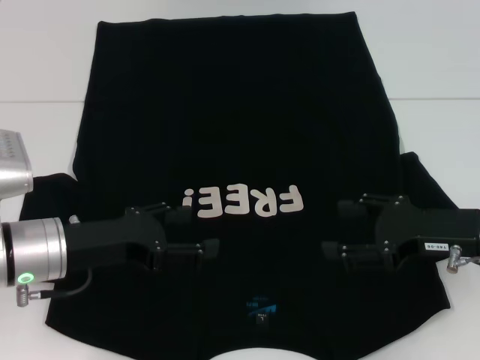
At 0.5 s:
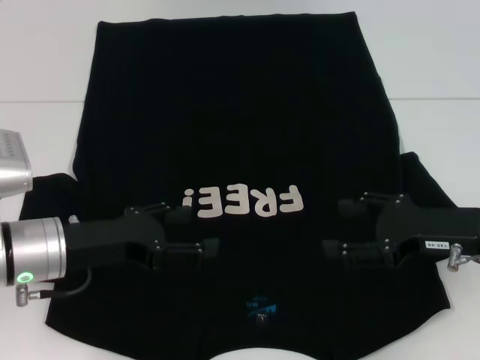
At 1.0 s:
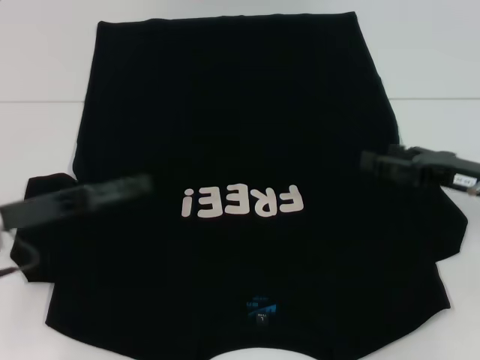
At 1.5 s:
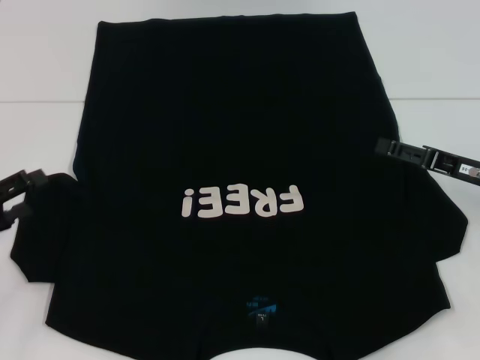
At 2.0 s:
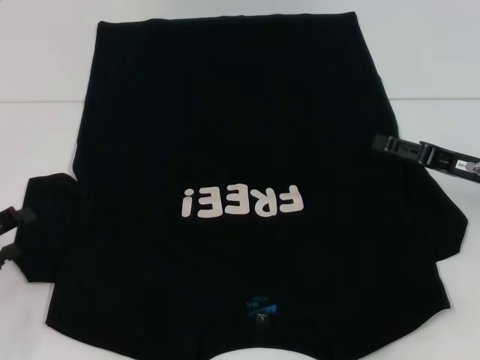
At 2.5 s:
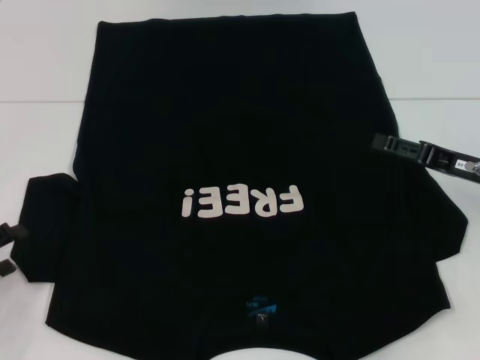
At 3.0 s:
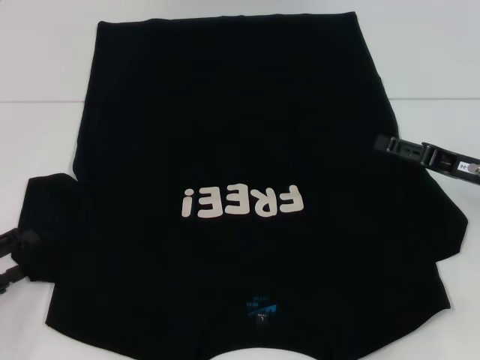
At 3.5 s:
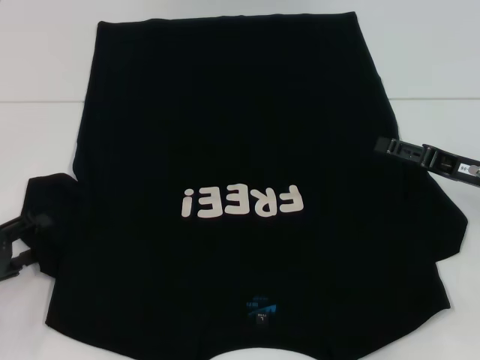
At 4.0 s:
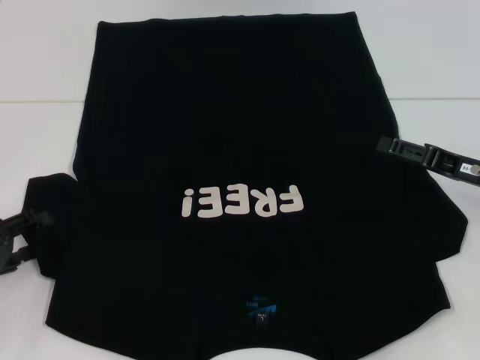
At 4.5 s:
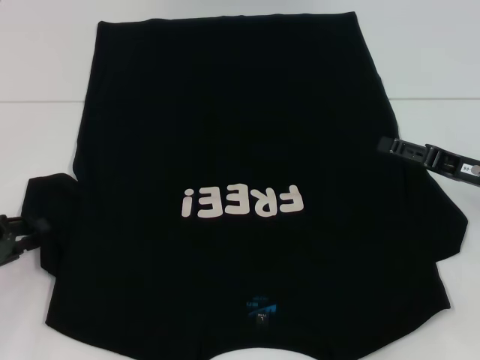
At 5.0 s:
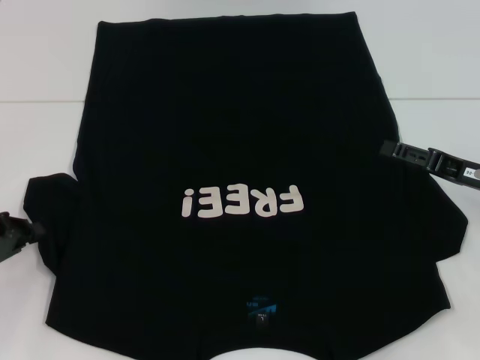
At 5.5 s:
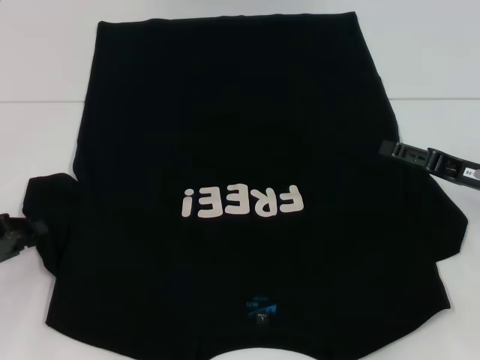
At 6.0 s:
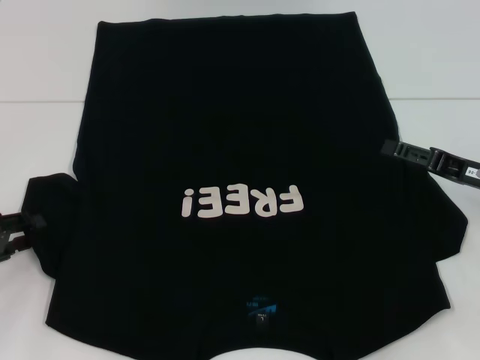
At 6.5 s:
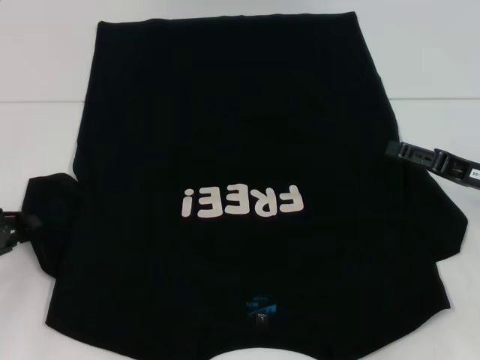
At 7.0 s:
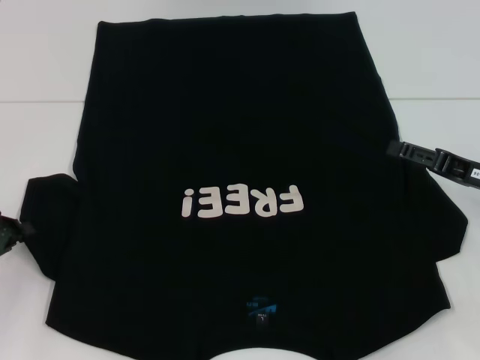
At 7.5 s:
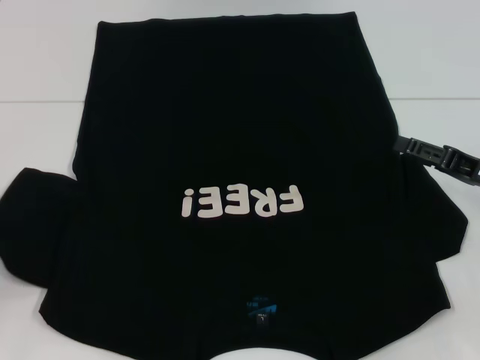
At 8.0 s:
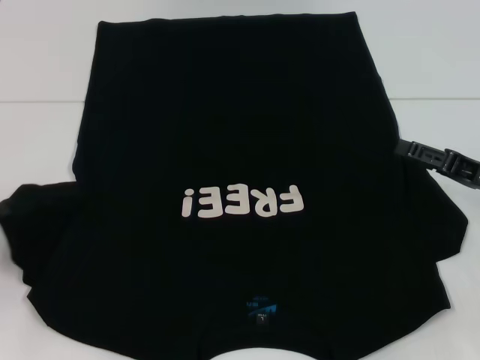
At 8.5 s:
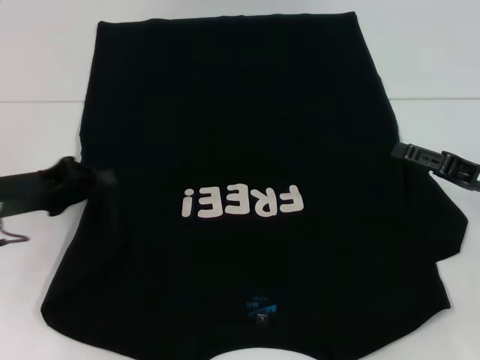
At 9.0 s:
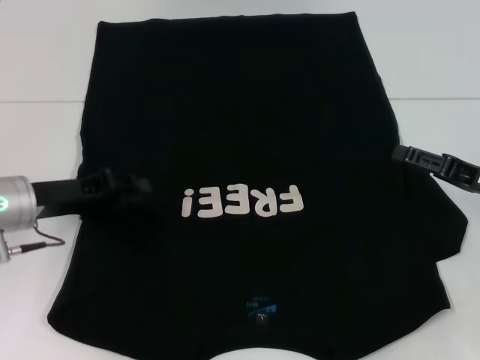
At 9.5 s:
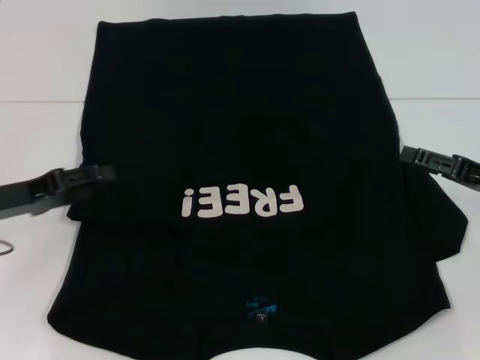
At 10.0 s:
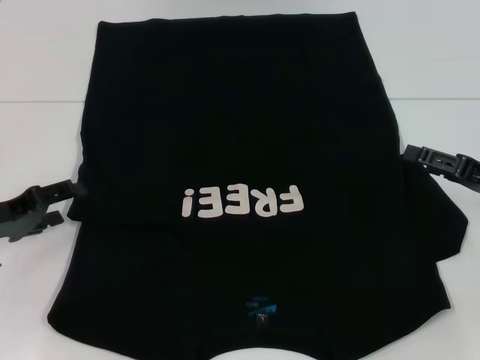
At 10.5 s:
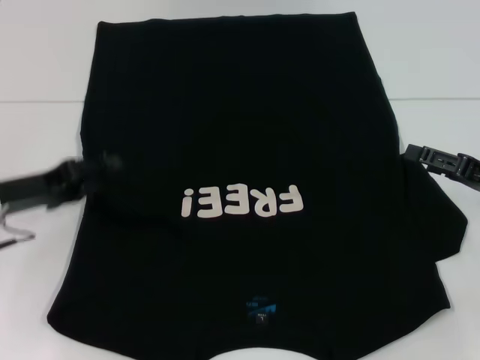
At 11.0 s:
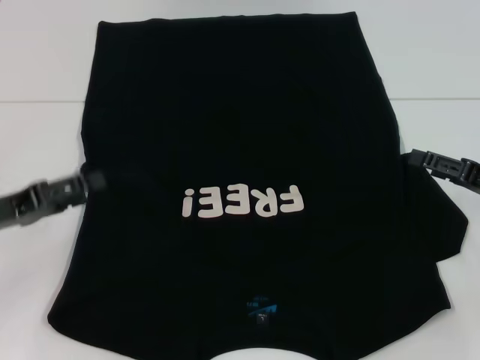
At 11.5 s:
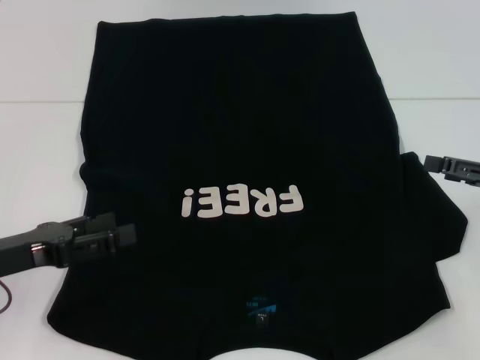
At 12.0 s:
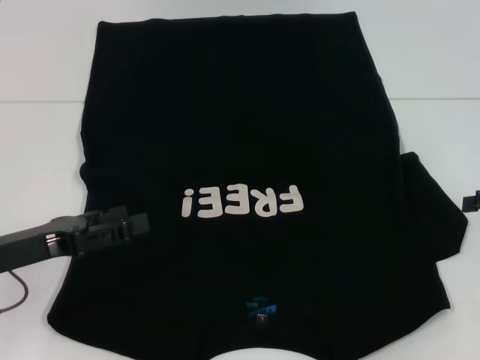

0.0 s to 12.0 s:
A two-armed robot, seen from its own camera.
Step, 0.0 to 9.0 s: Fold the bottom left sleeve with your left hand.
0.0 to 2.0 s: The right gripper shifts by some 5 cm; the left gripper shifts roughly 15 cm to the left.
2.0 to 4.0 s: The grippers make only small movements.
4.0 to 6.0 s: The left gripper closes.
6.0 to 8.0 s: The left gripper closes up.
8.0 to 10.0 s: The left gripper moves to the right, approximately 5 cm, and opens.
10.0 to 12.0 s: The right gripper moves to the right, roughly 5 cm. The left gripper shifts by about 5 cm.

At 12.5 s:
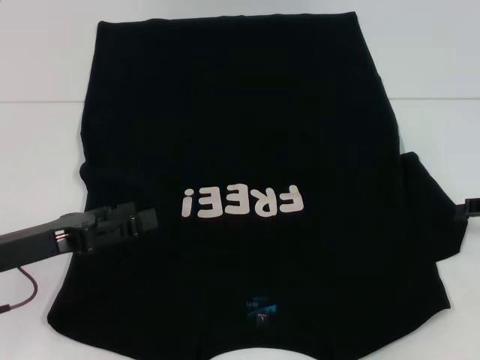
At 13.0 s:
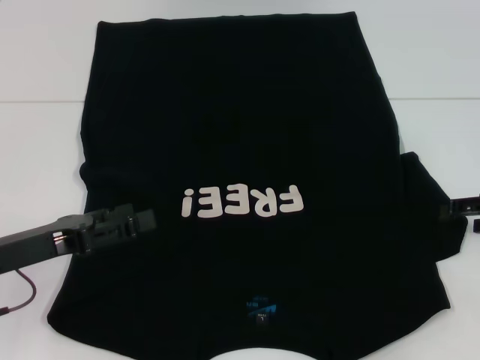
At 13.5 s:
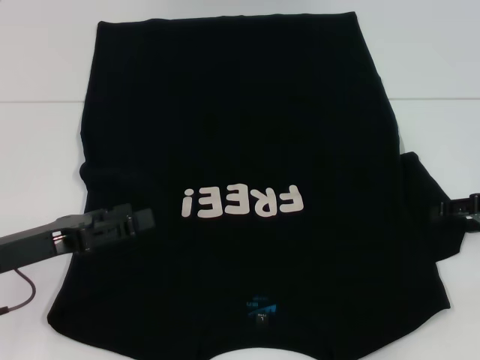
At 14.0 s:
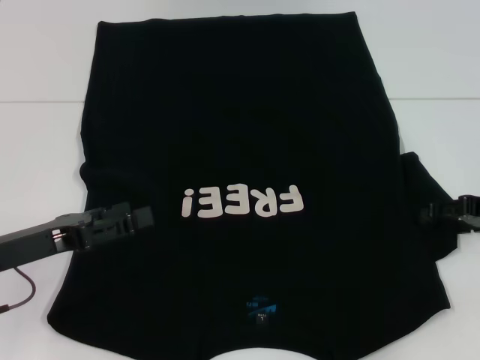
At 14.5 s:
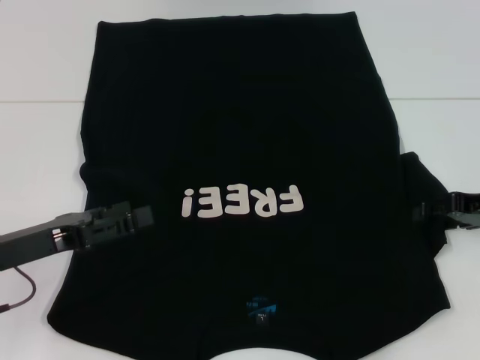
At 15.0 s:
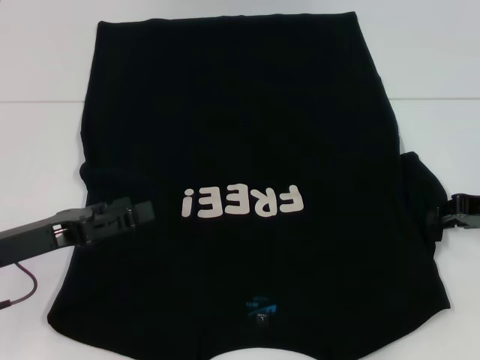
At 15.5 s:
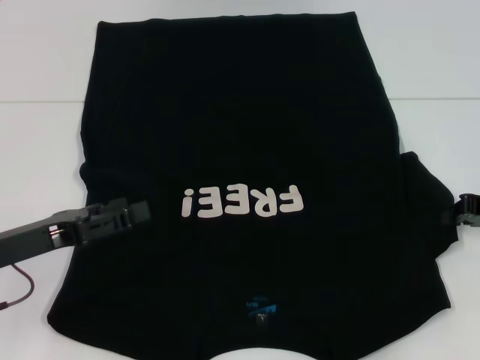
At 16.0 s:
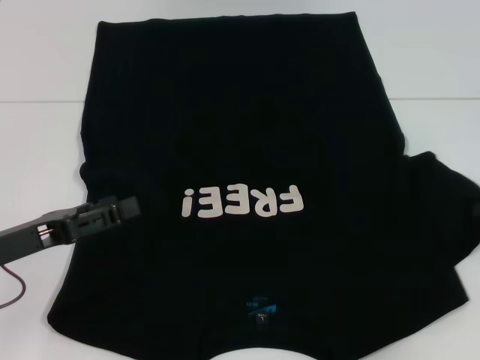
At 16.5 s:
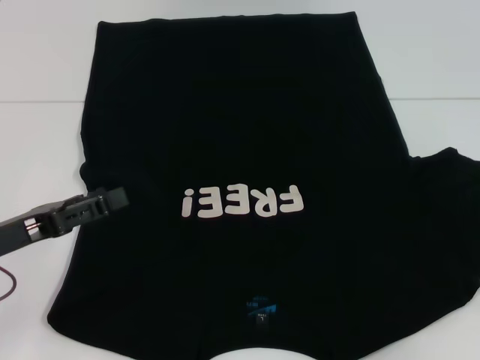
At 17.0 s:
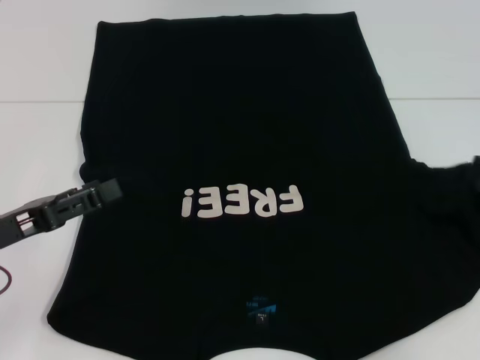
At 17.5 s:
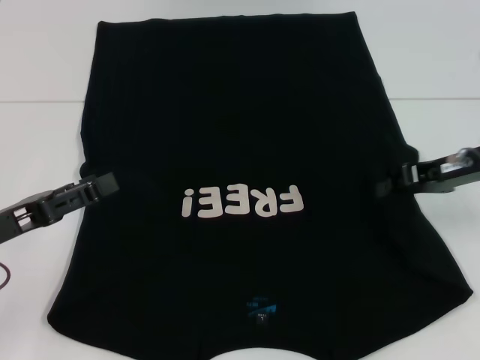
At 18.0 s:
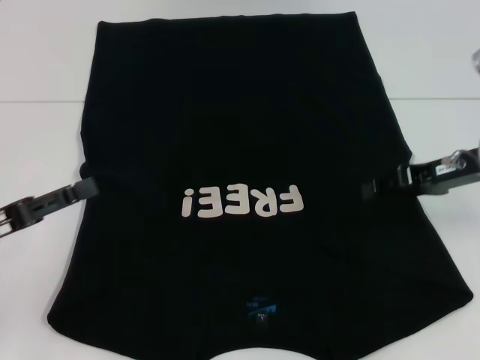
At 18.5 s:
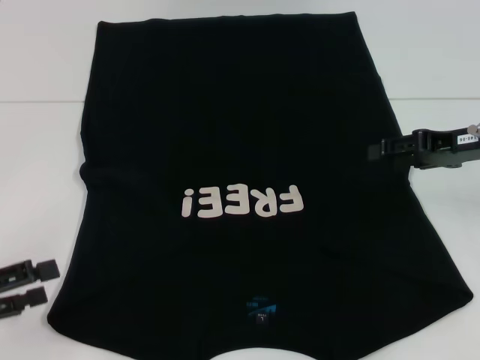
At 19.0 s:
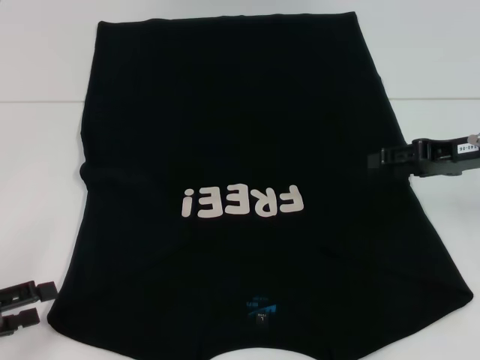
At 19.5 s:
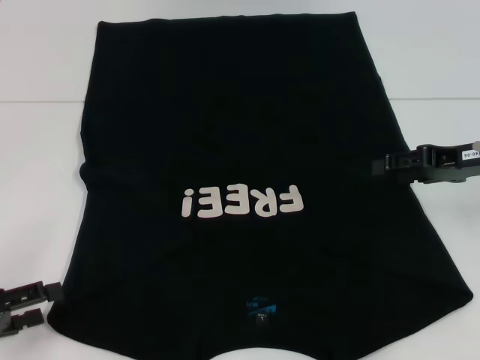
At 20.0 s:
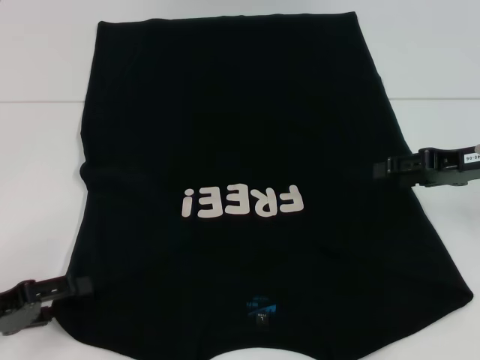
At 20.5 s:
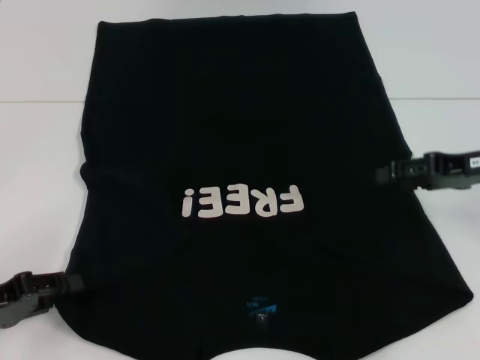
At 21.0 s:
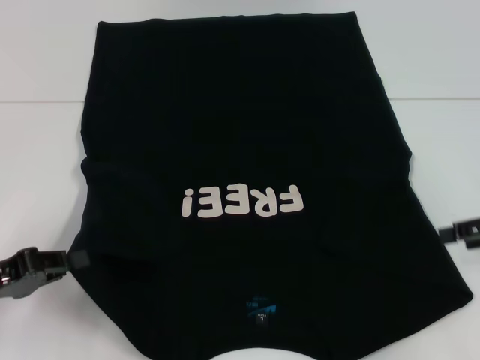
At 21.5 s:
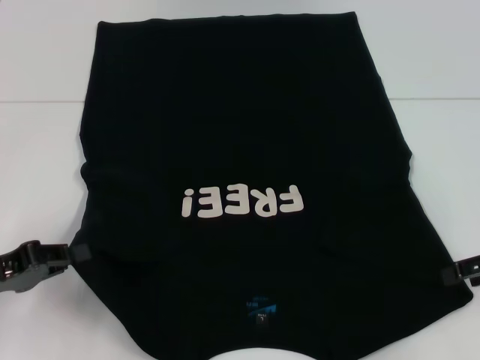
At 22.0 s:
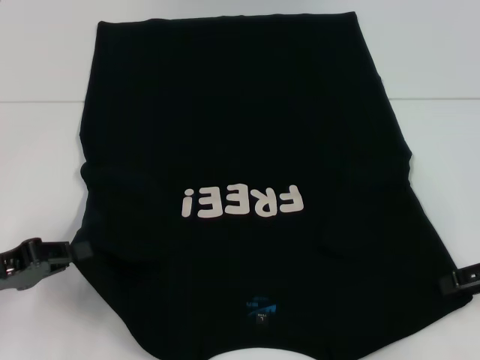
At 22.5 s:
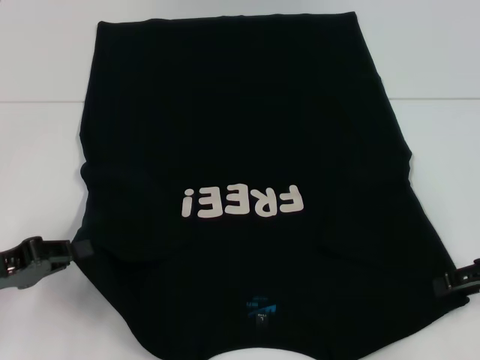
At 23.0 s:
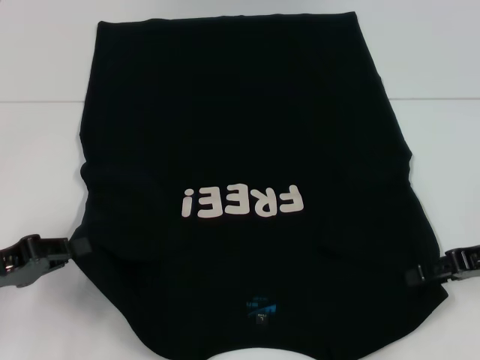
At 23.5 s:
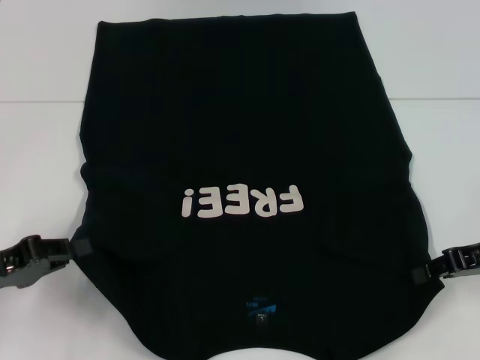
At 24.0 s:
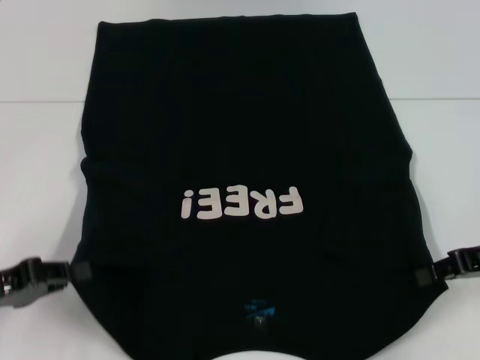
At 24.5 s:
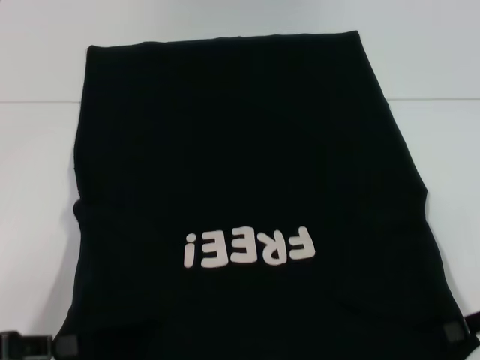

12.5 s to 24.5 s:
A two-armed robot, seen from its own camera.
Step, 12.5 to 18.0 s: Fold the bottom right sleeve with your right hand.
Step, 18.5 to 23.5 s: Grab the bottom left corner with your left hand.
Step, 18.5 to 23.5 s: Grab the bottom right corner with your right hand.
12.5 to 14.5 s: The right gripper shifts by approximately 5 cm.
14.5 to 16.5 s: The right gripper moves to the right, roughly 5 cm, and closes up.
16.5 to 18.5 s: The right gripper goes approximately 10 cm to the left, and opens its fingers, while the left gripper moves to the left and backward, some 10 cm.
18.5 to 20.5 s: The grippers make only small movements.
20.5 to 22.5 s: The right gripper shifts approximately 5 cm backward; the left gripper closes.
22.5 to 24.5 s: The left gripper moves backward, some 5 cm. Meanwhile the right gripper closes its fingers.

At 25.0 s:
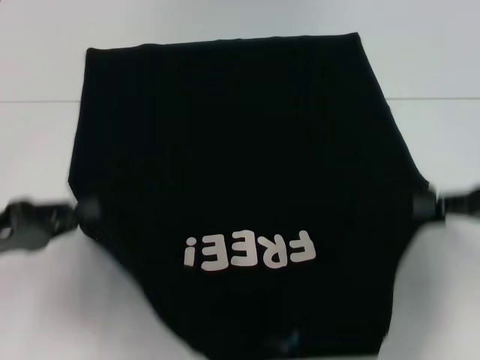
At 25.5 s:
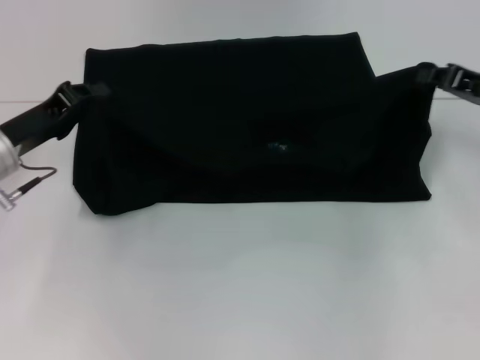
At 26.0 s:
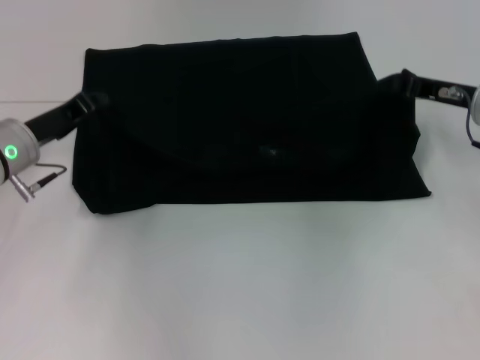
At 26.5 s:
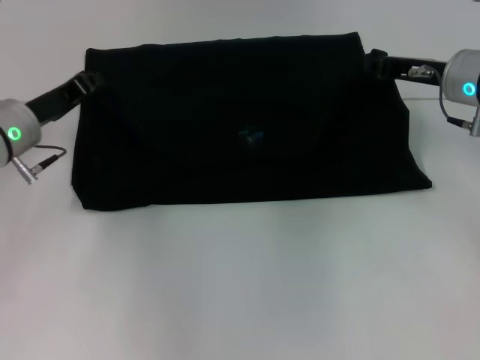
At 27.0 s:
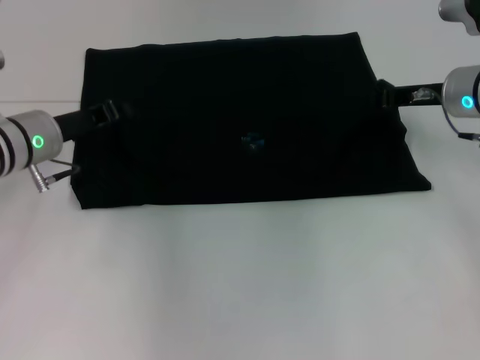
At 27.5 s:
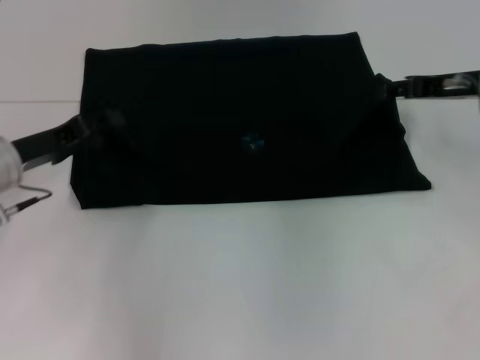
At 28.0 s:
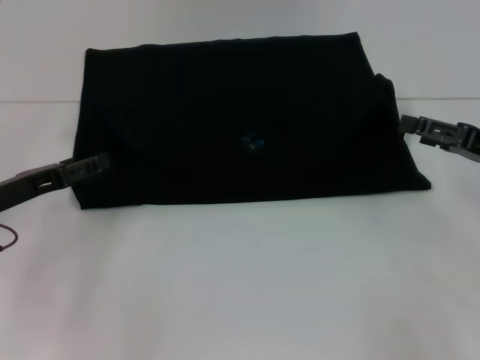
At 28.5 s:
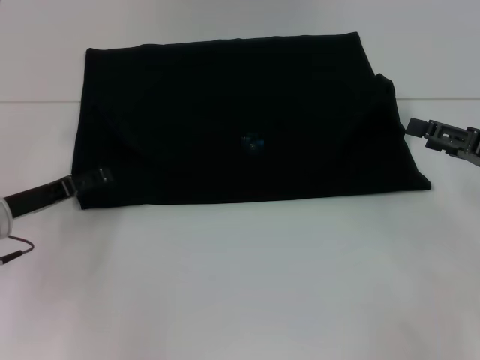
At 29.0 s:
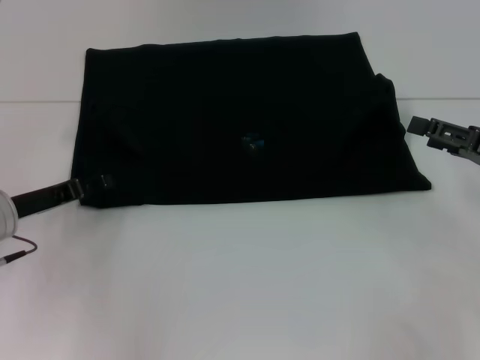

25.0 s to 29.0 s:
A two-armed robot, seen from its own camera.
Step, 25.0 to 27.5 s: Fold the clothes with your left hand.
Step, 25.0 to 27.5 s: Fold the clothes with your right hand.
25.0 to 27.0 s: The left gripper goes some 20 cm forward and to the right; the right gripper is displaced forward and to the left by approximately 15 cm.
27.0 to 29.0 s: The right gripper heads backward and to the right, covering about 15 cm, and opens; the left gripper goes about 5 cm backward, and opens.
